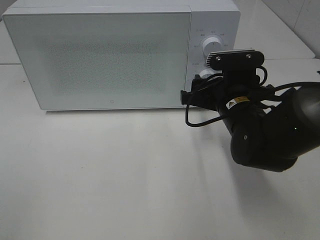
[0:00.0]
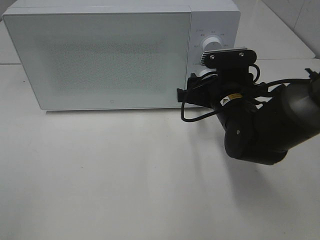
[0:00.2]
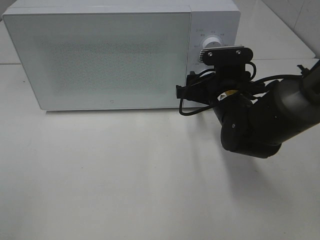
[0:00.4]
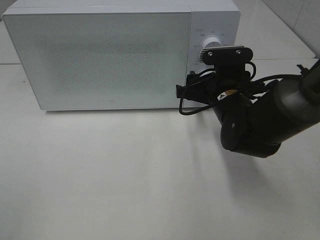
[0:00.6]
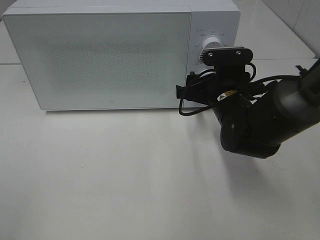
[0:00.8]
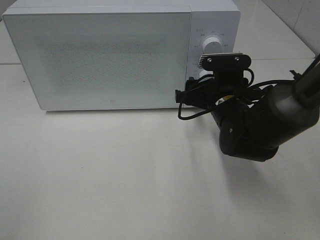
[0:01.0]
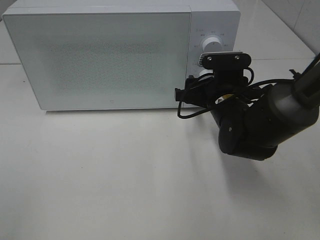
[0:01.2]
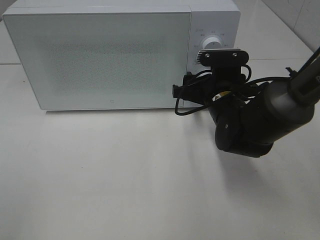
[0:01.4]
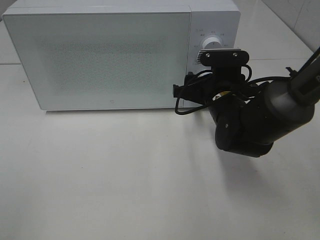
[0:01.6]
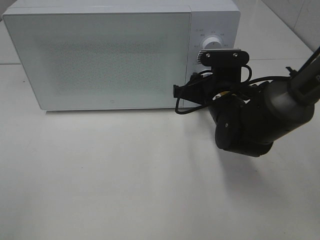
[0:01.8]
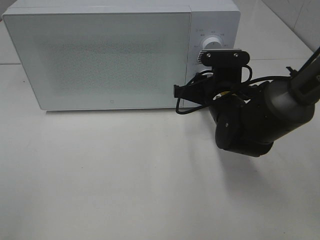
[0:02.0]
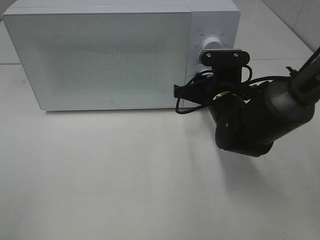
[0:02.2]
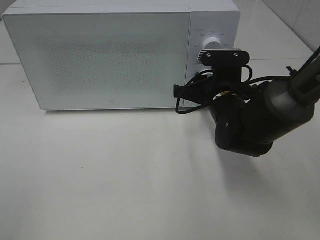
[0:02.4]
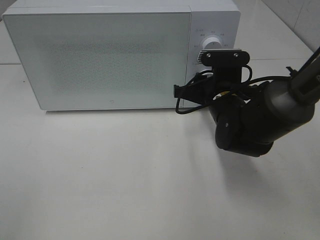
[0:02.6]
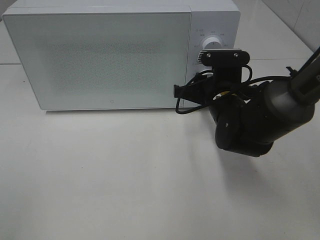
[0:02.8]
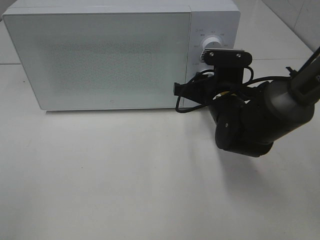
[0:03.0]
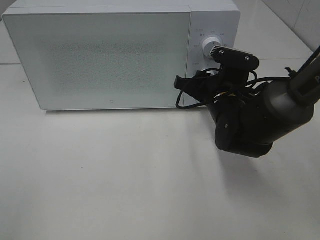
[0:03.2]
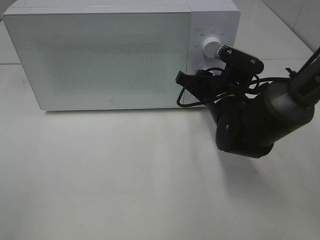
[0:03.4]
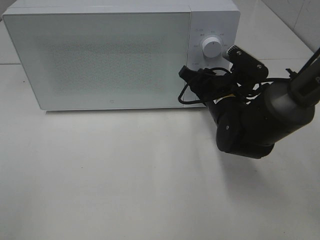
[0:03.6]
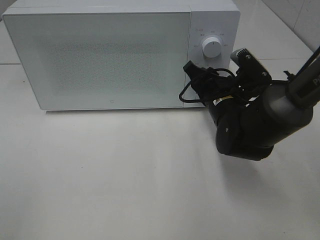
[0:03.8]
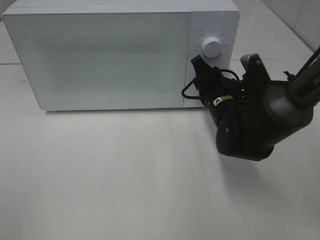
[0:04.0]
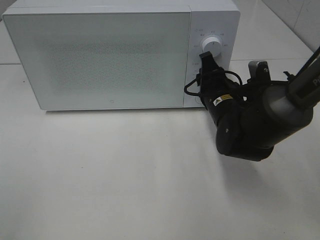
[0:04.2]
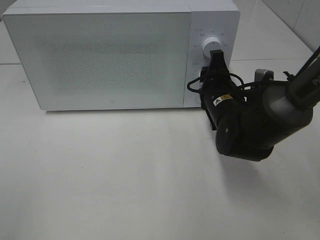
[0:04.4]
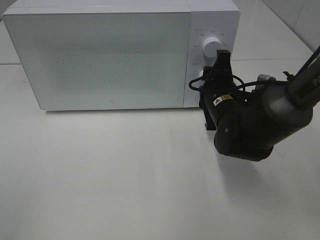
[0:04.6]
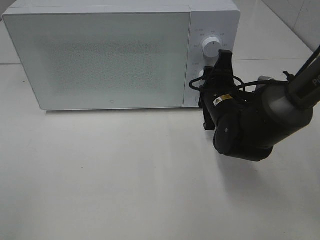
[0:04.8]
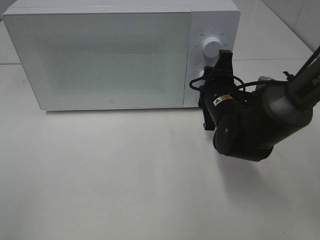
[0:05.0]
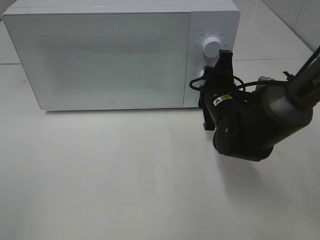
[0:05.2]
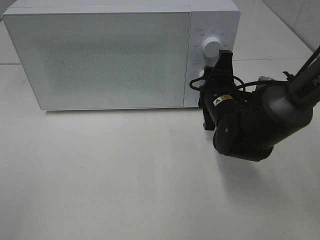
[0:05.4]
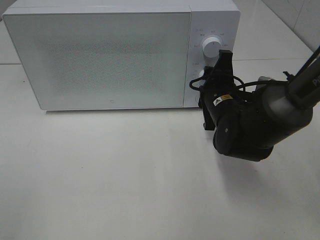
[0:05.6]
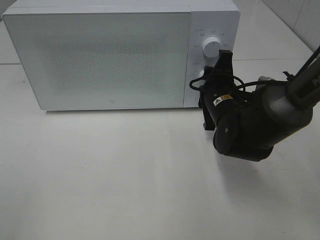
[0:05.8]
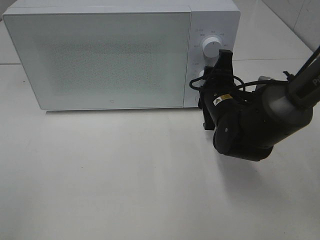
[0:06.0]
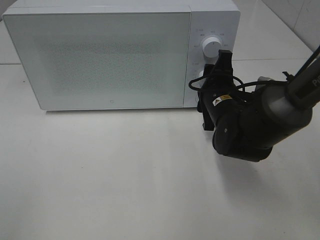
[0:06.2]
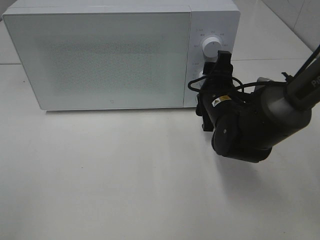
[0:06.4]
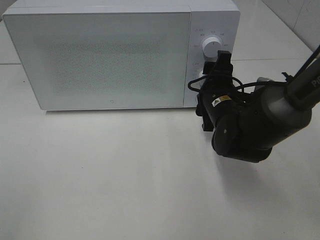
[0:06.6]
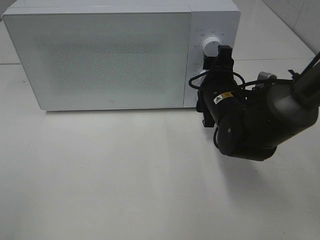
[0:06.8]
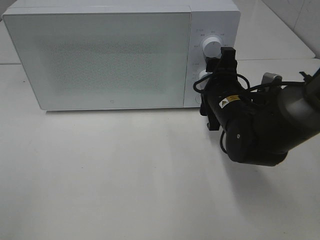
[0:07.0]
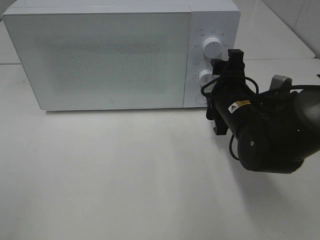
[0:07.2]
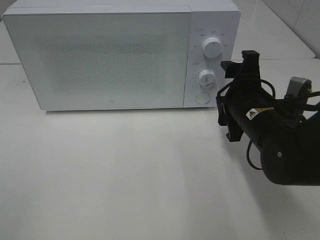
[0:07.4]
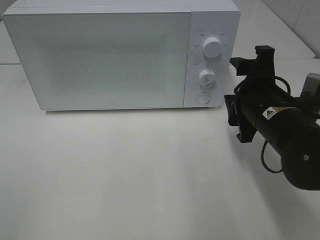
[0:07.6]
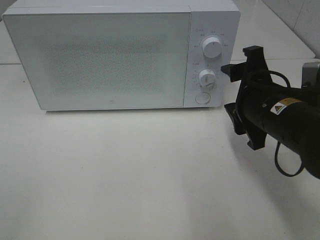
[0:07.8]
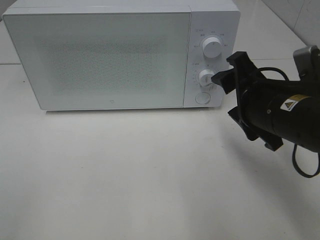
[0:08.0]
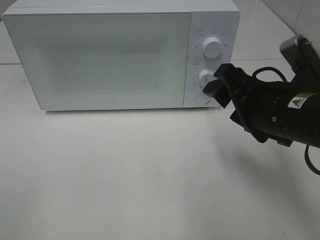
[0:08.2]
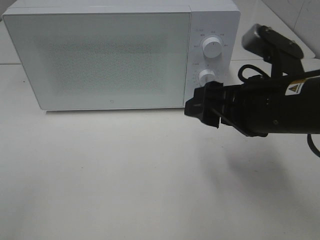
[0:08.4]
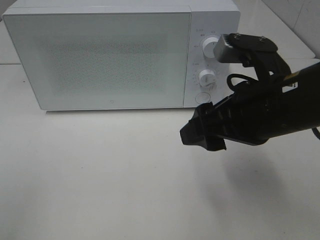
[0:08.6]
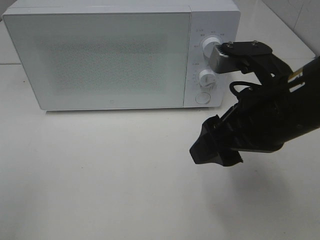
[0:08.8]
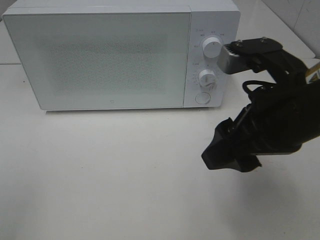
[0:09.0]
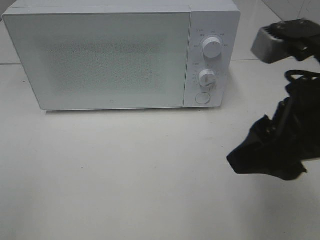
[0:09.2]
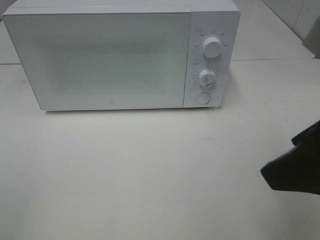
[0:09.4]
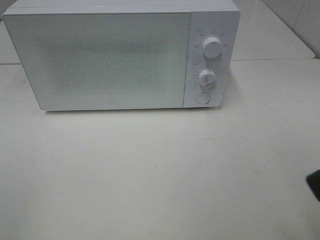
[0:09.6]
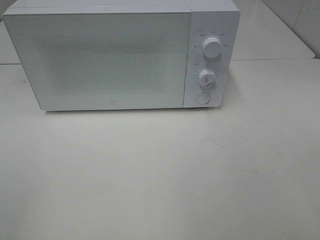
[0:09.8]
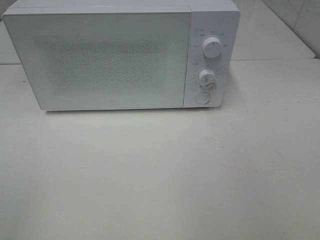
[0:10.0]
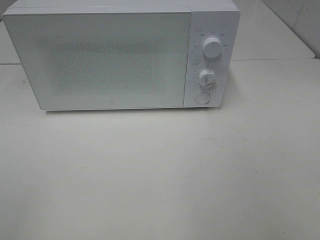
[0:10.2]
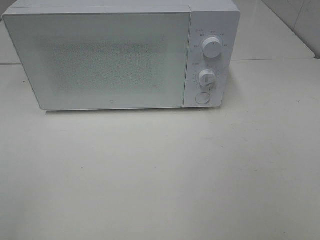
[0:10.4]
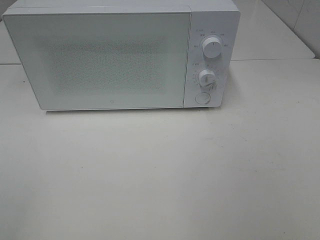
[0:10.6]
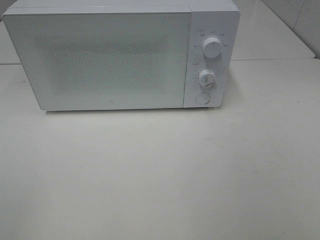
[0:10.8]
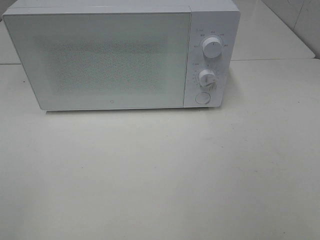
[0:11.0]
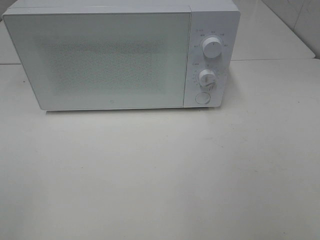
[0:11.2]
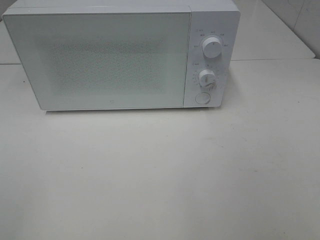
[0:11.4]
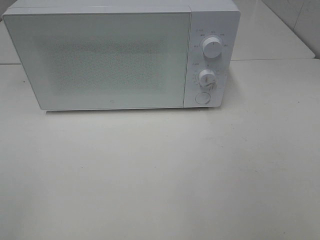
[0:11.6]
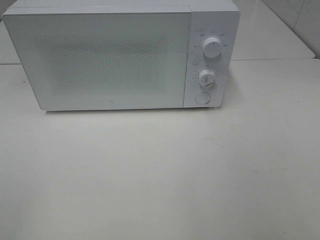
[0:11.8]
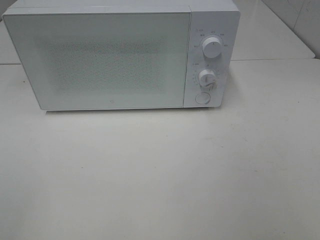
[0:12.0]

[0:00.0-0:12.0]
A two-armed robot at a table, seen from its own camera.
Task of the whole recording: Heat Sandwich.
Step, 0:00.0 to 0:07.2: Right hand: twist timer button.
0:00.0 to 0:03.0: The grippers move only a little.
0:04.4 to 0:06.0: There are only small adjustments of the grippers.
0:06.0 to 0:07.6: The right gripper goes approximately 10 cm backward.
0:07.6 to 0:09.0: The right gripper goes about 10 cm upward and backward.
0:09.0 to 0:10.4: The right gripper shifts about 25 cm backward, to the right and upward.

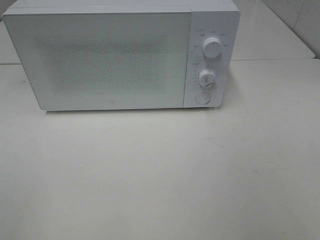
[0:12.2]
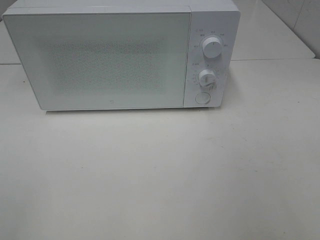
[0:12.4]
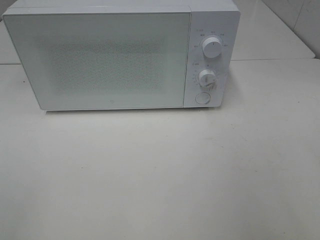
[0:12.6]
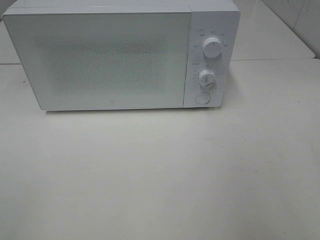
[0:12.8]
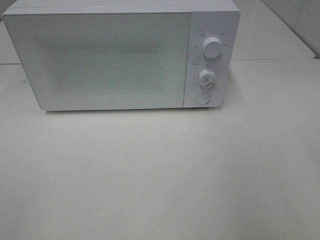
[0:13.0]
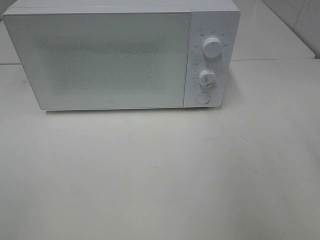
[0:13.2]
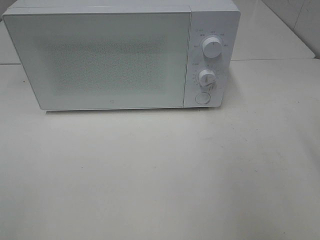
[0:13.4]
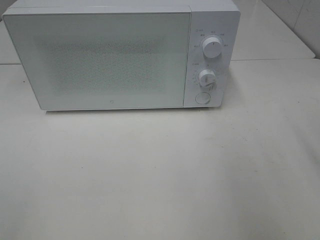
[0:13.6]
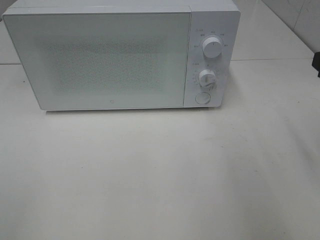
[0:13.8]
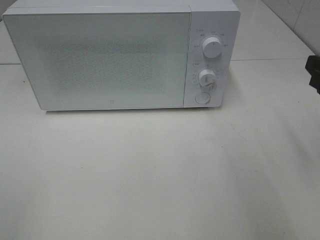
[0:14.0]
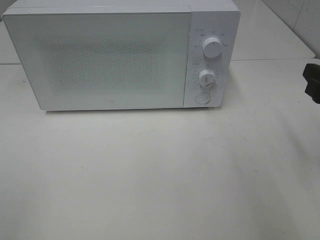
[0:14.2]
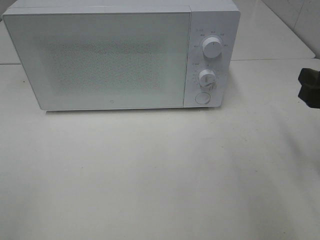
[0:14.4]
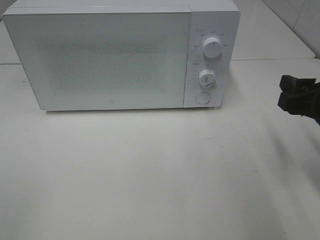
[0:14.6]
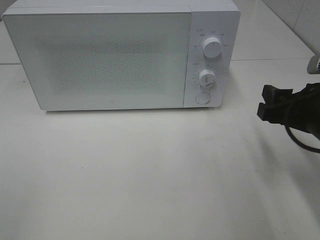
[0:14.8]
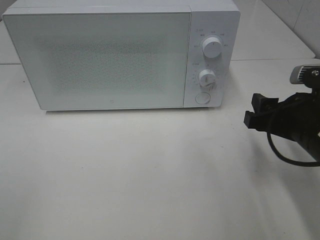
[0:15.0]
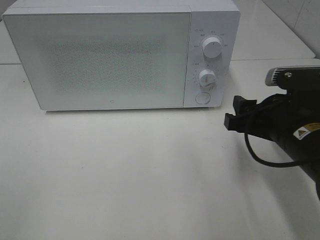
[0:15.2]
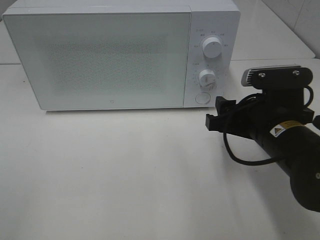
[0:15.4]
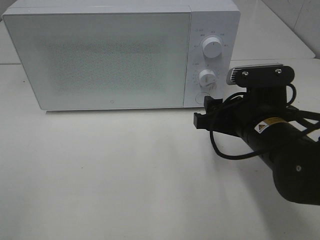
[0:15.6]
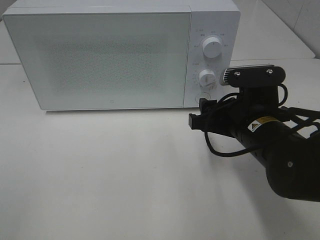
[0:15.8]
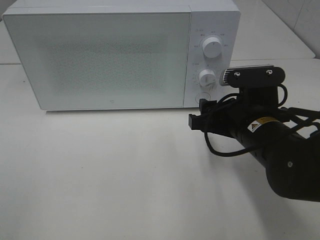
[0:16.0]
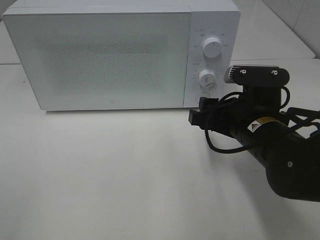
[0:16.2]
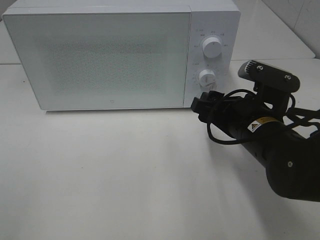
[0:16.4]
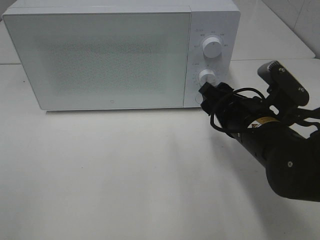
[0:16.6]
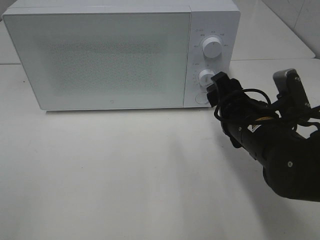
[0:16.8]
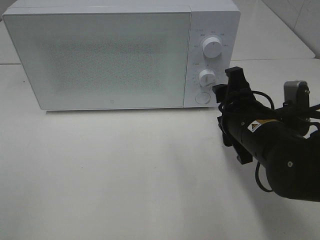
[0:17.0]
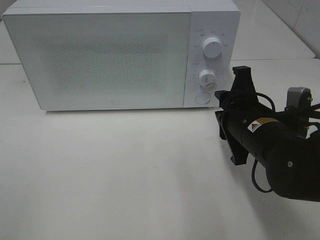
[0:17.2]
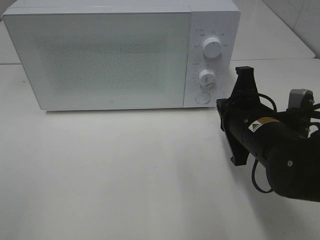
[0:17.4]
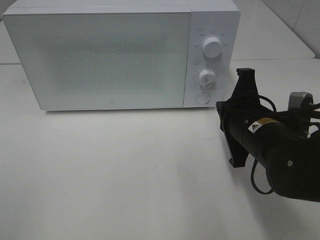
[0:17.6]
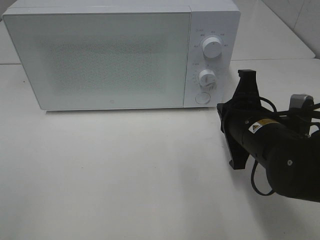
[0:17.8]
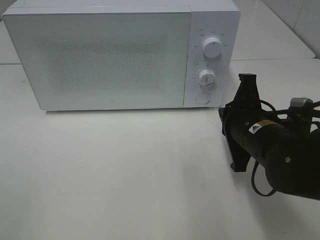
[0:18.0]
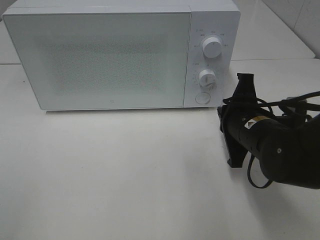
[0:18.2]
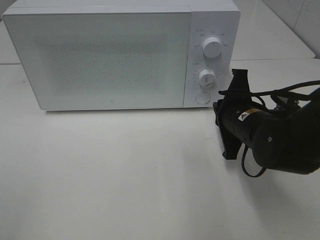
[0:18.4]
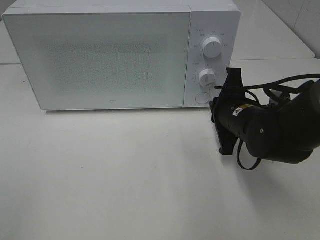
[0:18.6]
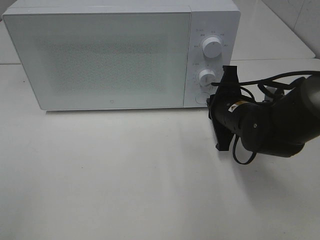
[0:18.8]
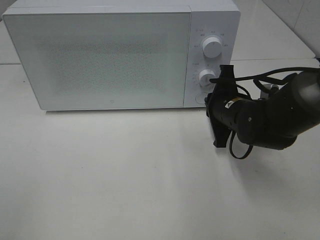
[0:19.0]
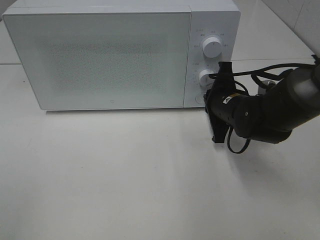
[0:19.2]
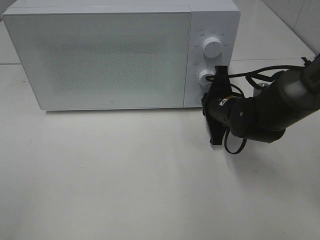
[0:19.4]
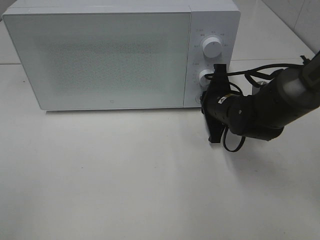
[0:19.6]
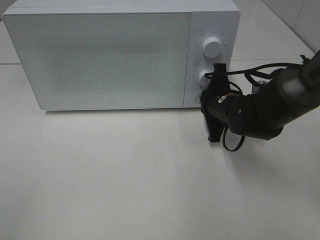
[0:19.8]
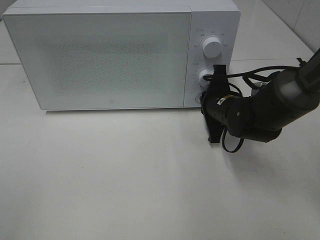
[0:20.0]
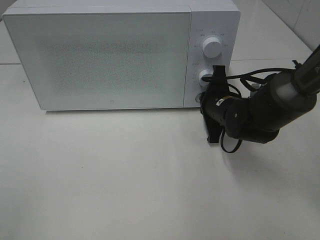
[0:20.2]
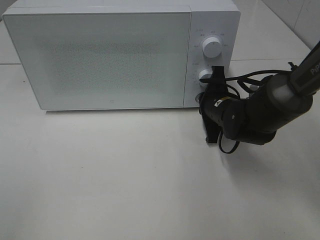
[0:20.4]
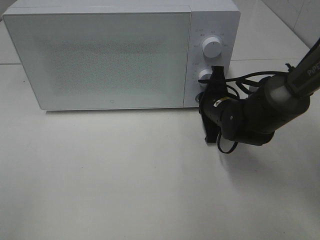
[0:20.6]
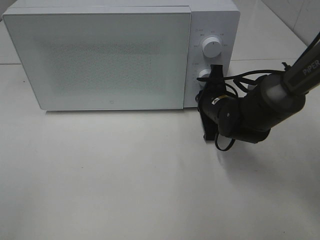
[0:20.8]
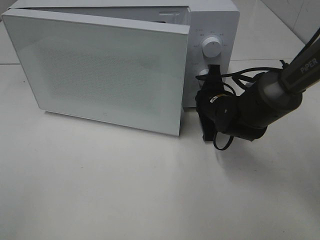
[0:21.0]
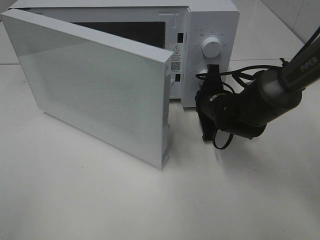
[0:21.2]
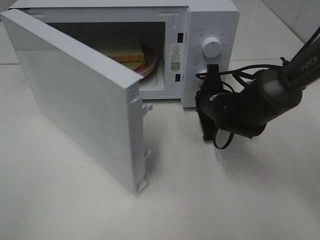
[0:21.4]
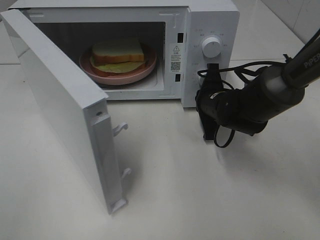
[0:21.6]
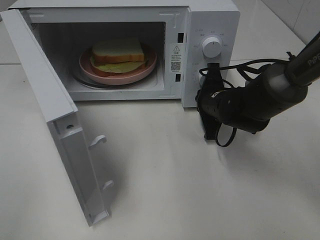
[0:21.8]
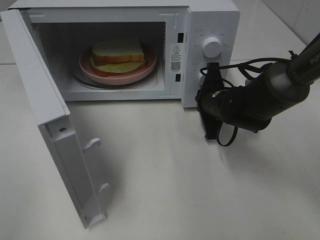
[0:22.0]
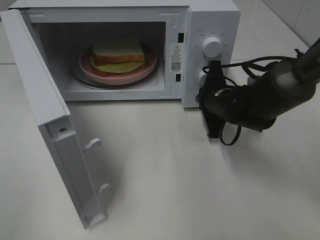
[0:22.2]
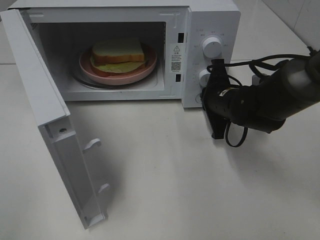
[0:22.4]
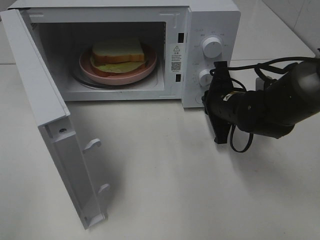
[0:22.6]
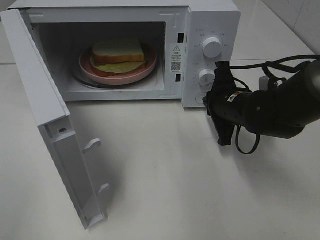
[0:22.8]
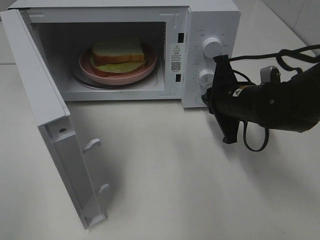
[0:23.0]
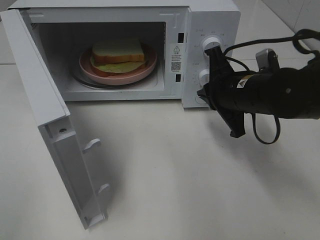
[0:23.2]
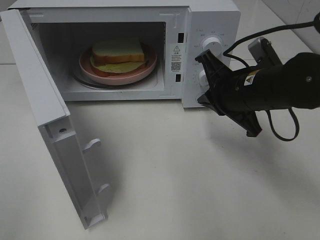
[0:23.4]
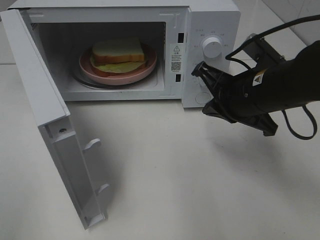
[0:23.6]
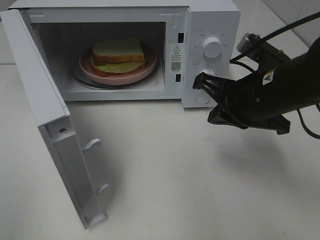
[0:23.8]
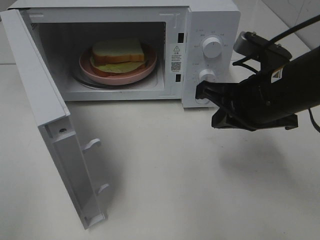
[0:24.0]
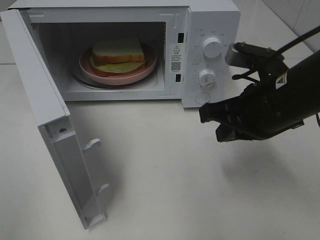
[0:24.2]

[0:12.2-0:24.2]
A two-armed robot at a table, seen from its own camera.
Task of the whole recording: Heat Sandwich.
Step, 0:12.2 to 0:22.8: Right hand: press the switch.
0:13.8 to 0:15.2: The right gripper is displaced downward and to the left by approximately 15 cm.
0:15.2 to 0:16.6: The right gripper moves about 5 cm.
0:16.6 to 0:18.2: The right gripper closes.
0:18.2 to 0:19.8: The right gripper heads forward, covering approximately 10 cm.
0:22.6 to 0:24.2: The right gripper goes about 15 cm backward and upward.
